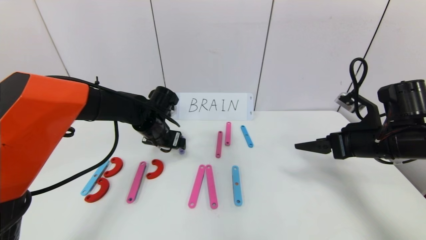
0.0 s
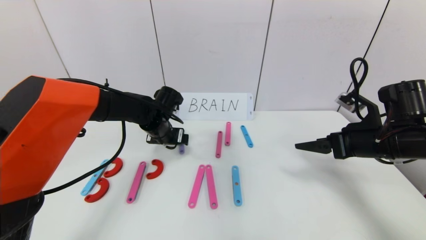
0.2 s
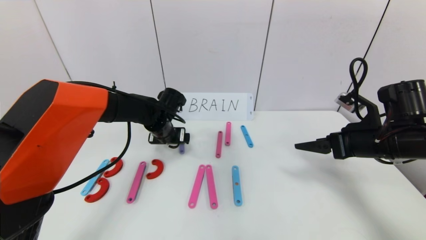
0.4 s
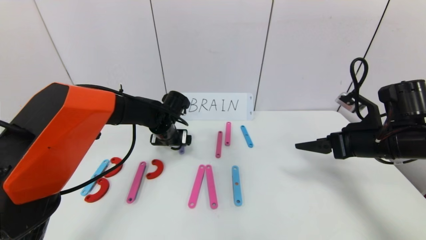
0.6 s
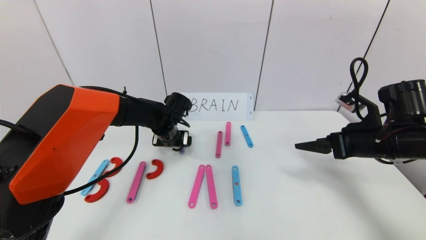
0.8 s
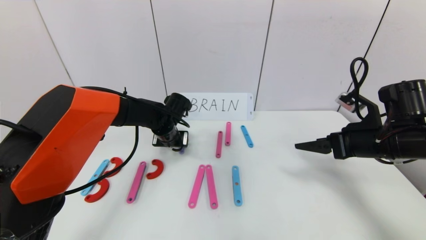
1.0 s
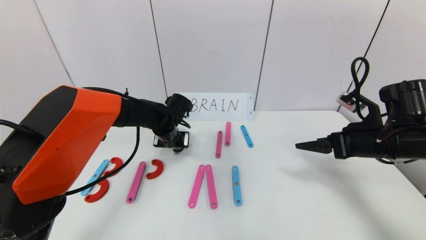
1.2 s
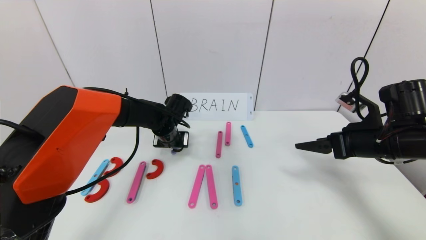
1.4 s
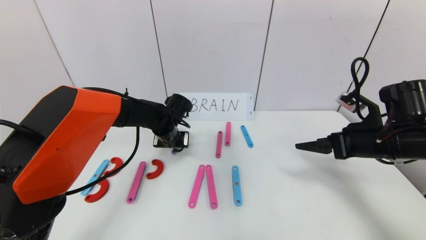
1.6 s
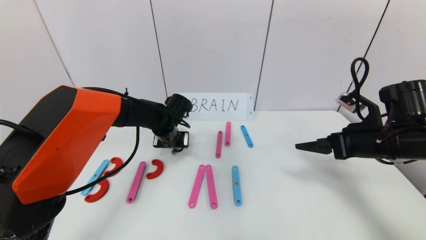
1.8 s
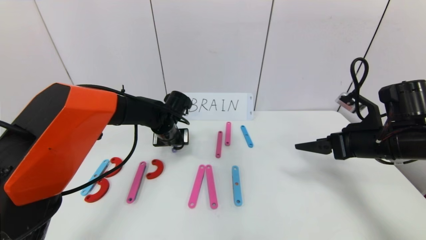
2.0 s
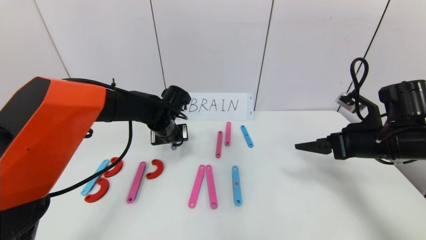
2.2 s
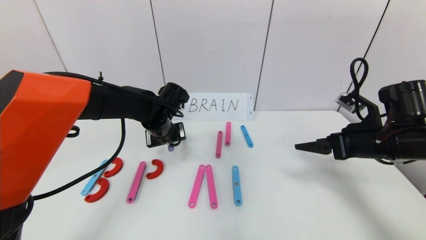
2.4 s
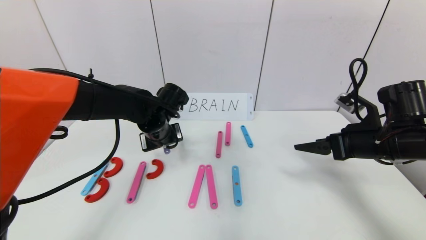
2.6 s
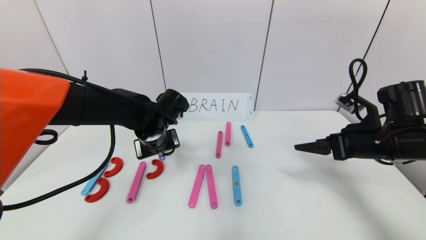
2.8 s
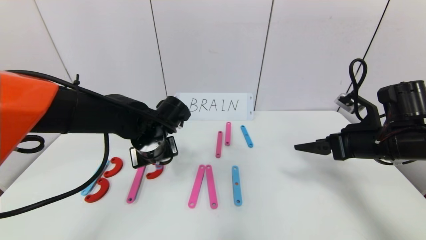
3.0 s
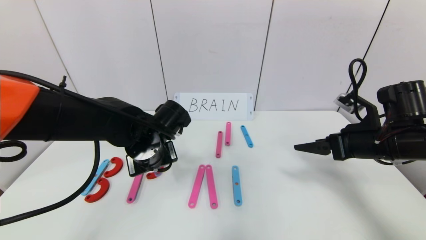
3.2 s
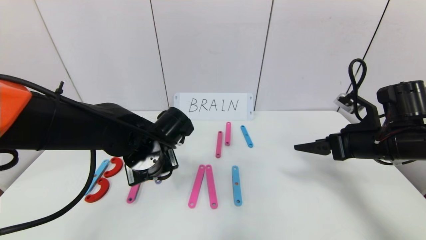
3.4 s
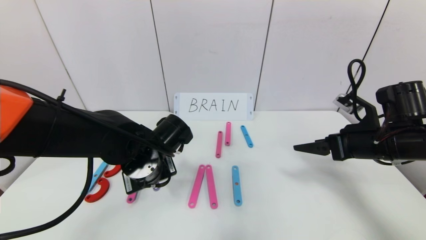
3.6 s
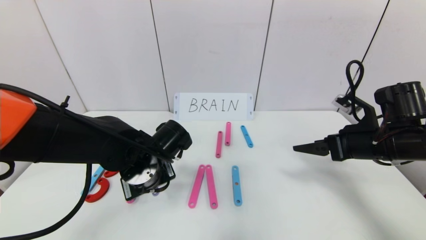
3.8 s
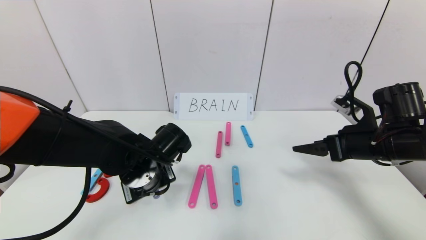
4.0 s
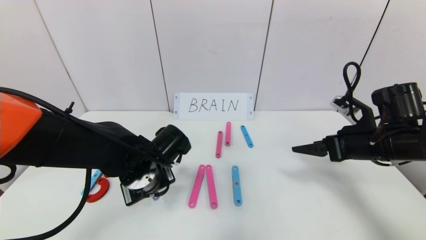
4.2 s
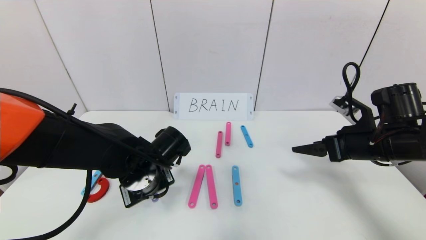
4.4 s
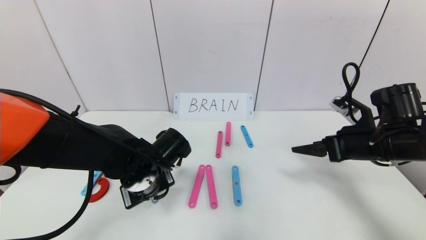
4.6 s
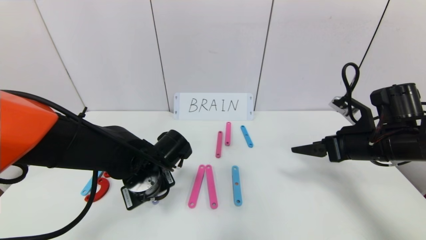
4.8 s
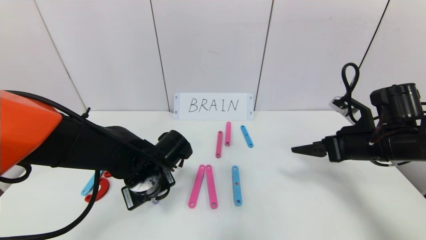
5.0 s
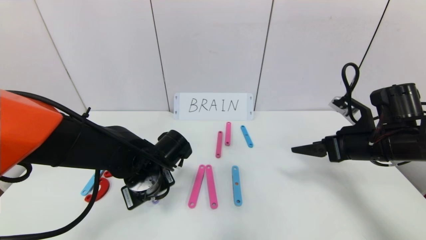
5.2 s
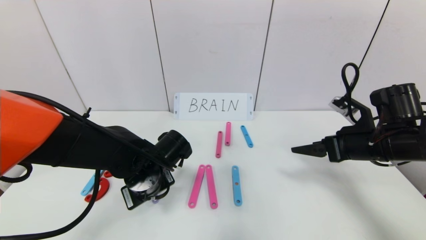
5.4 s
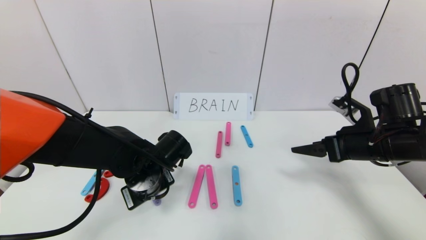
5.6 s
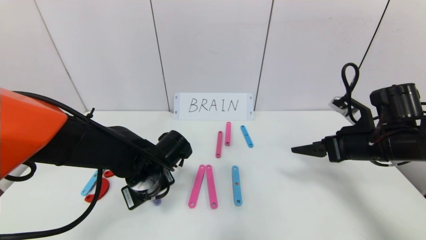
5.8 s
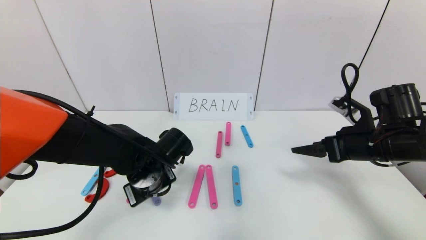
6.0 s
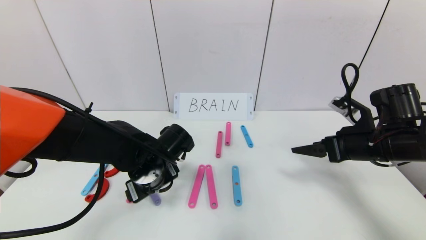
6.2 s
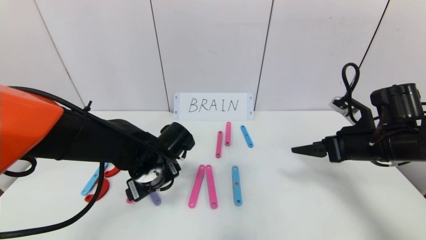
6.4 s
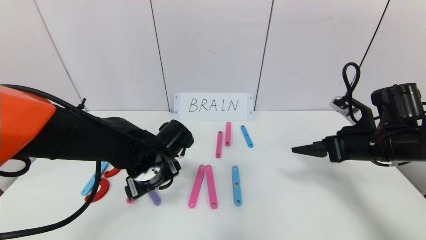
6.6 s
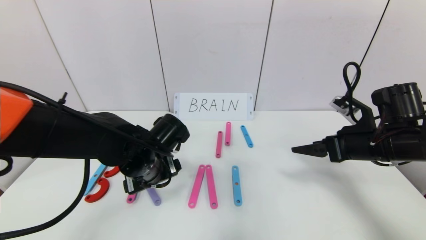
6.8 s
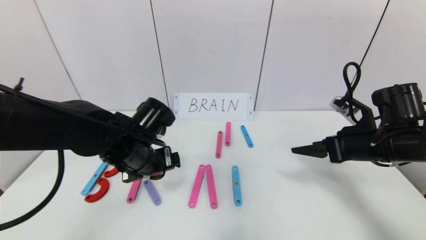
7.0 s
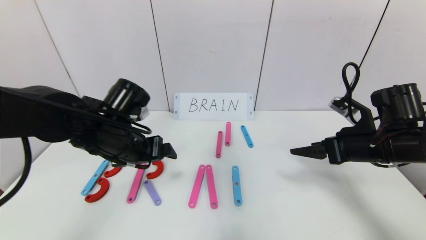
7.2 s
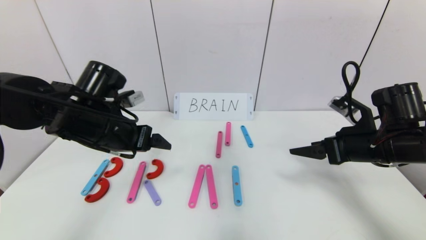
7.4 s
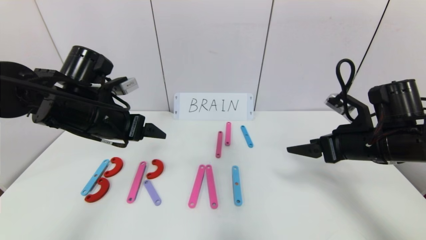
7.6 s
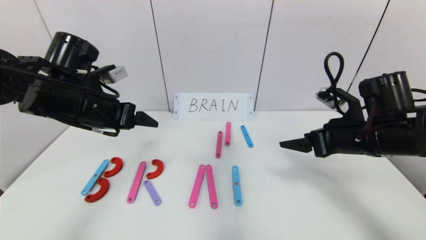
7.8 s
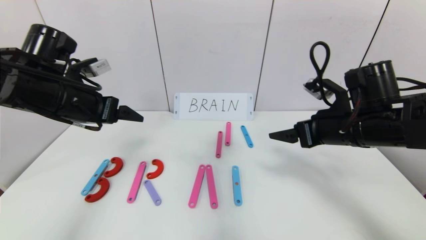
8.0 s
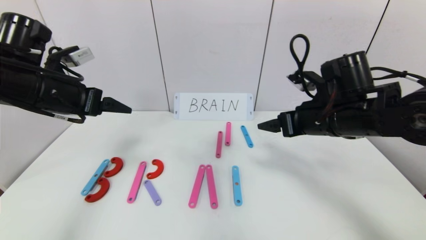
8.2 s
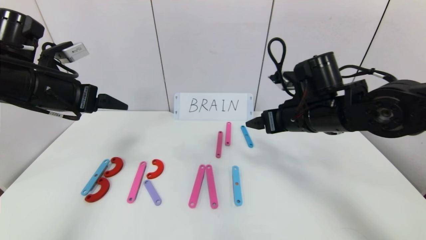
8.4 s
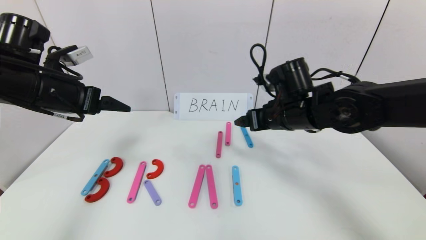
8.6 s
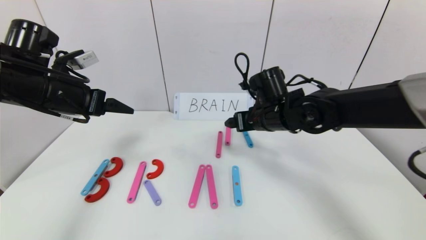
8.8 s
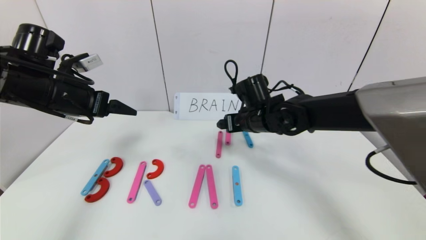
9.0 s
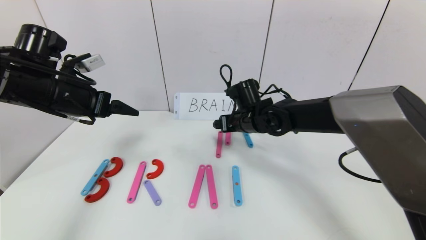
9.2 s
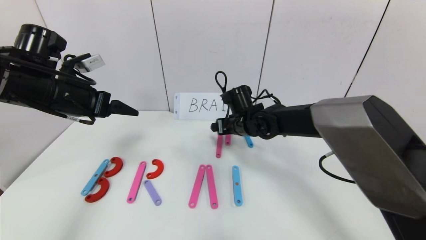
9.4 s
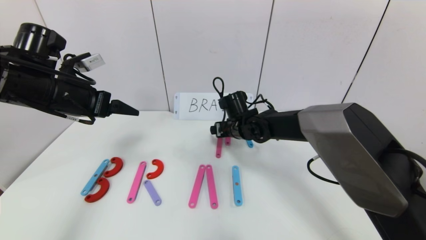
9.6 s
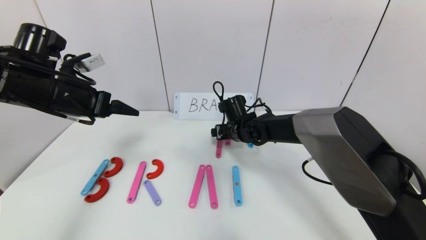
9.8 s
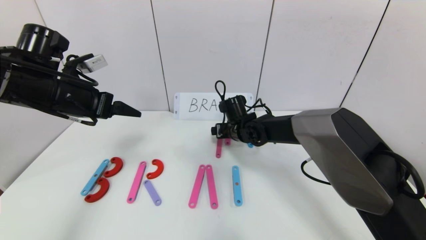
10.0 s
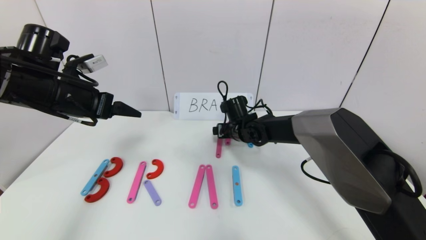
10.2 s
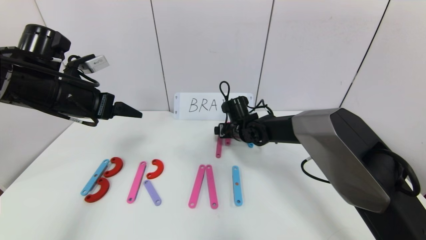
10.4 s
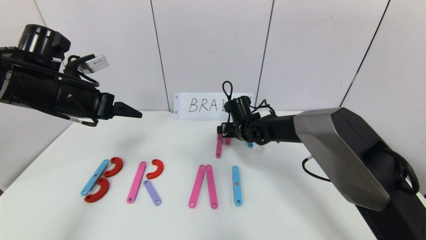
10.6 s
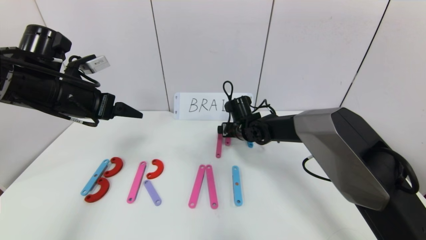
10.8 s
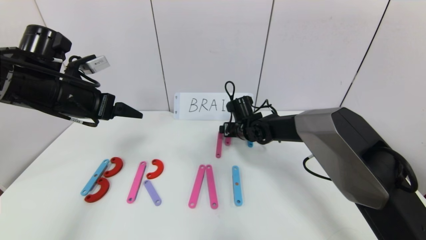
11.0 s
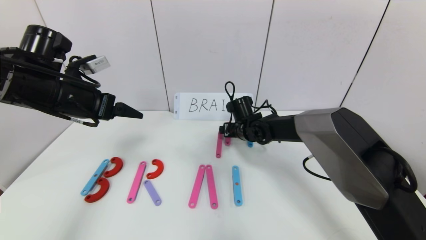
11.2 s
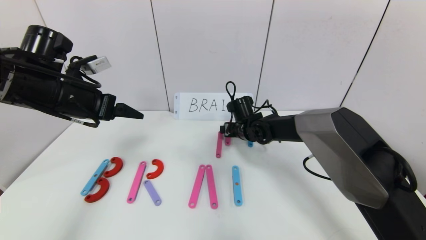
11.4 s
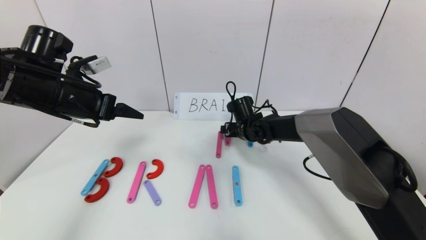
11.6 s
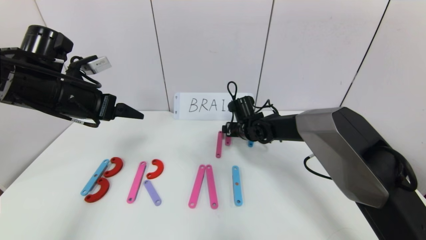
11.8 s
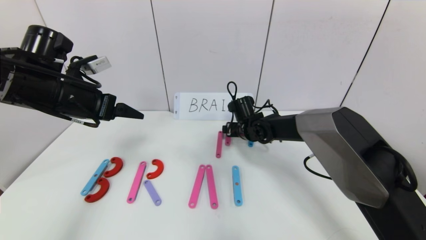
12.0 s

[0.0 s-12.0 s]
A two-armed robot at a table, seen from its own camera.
Task of the whole recording: rearrange the word baai as brain.
Step, 0.0 to 5.6 s: Place the character R between first character B and third character A.
0.0 to 1.6 s: The left gripper closes up.
1.6 to 3.0 s: The left gripper shifts approximately 10 cm backward.
3.0 to 4.4 s: The left gripper moves backward, approximately 5 cm.
4.4 to 6.0 s: The left gripper opens its fingers.
6.0 to 7.6 s: The left gripper heads upward and to the left, covering approximately 15 cm.
7.6 to 9.0 s: The left gripper moves to the left, some 5 cm; the right gripper is displaced to the left and forward by some 20 cm.
9.0 to 10.4 s: The right gripper travels downward and forward by about 10 cm.
10.4 to 12.0 s: The grippers stay close to where they were, moving slightly.

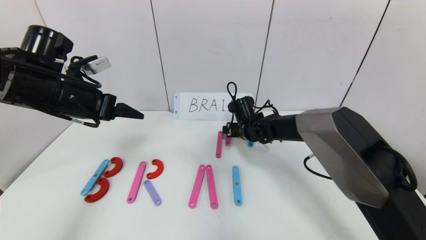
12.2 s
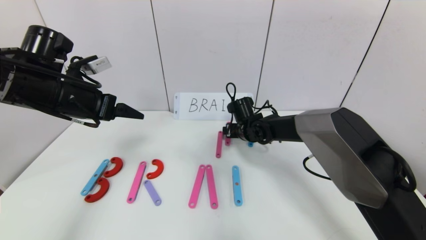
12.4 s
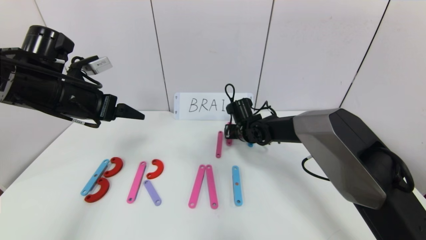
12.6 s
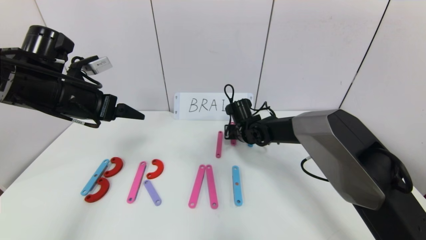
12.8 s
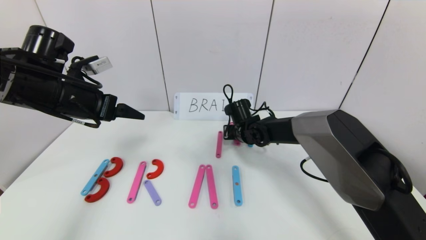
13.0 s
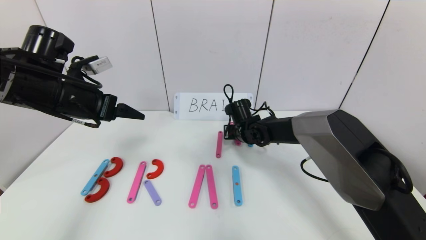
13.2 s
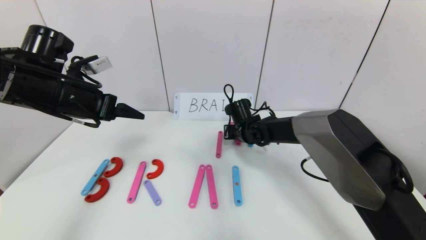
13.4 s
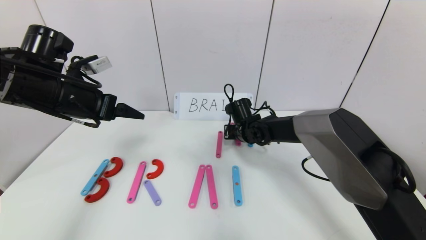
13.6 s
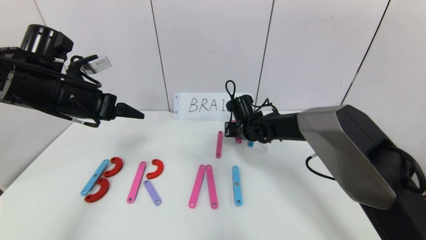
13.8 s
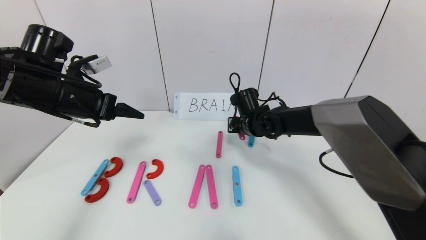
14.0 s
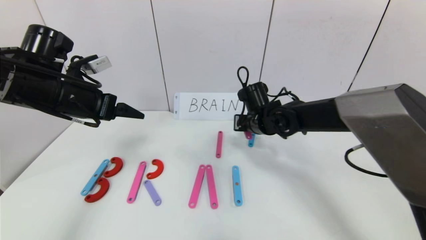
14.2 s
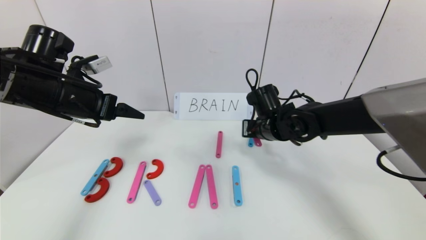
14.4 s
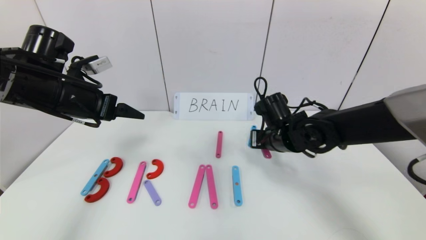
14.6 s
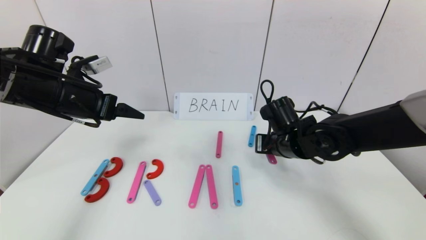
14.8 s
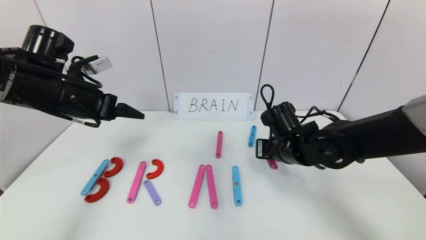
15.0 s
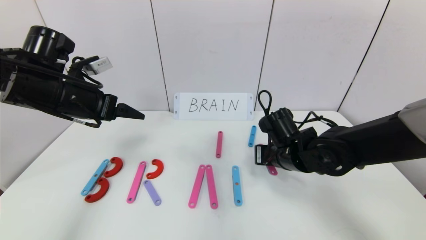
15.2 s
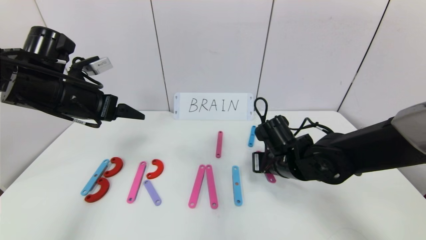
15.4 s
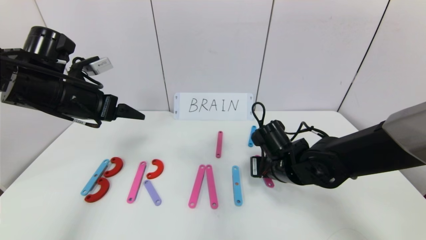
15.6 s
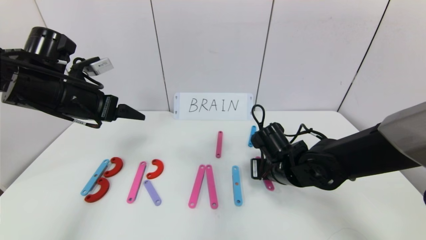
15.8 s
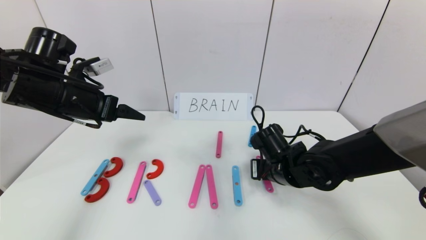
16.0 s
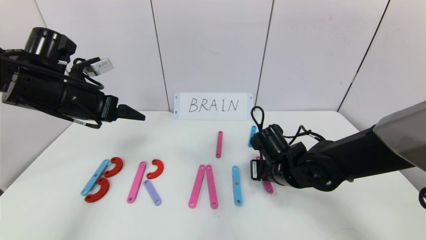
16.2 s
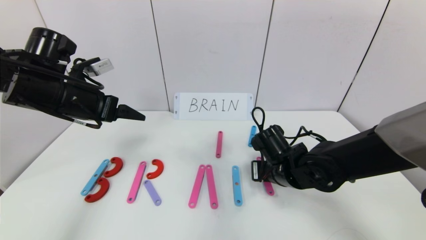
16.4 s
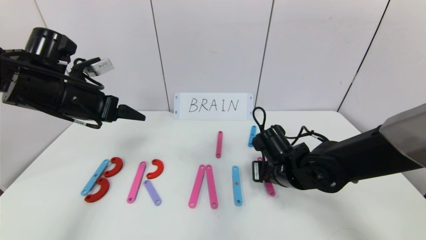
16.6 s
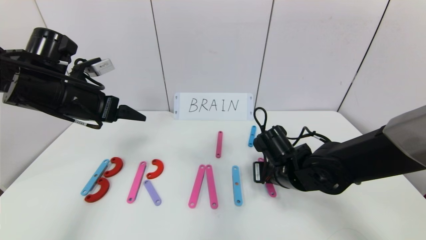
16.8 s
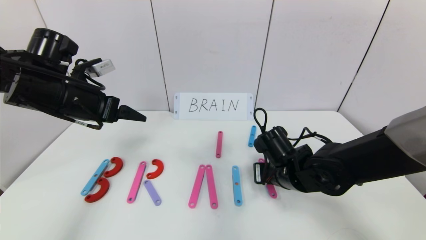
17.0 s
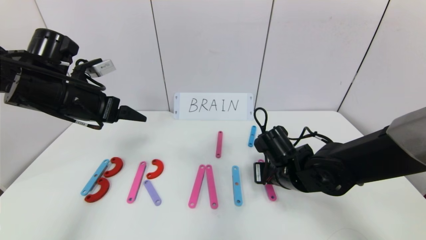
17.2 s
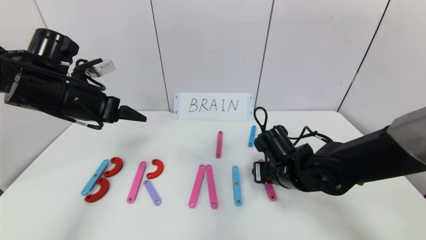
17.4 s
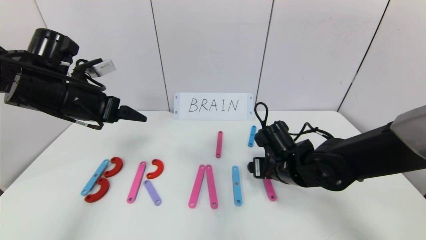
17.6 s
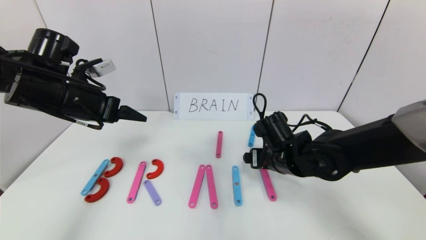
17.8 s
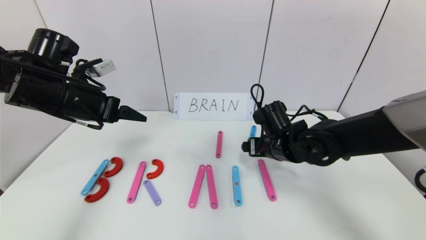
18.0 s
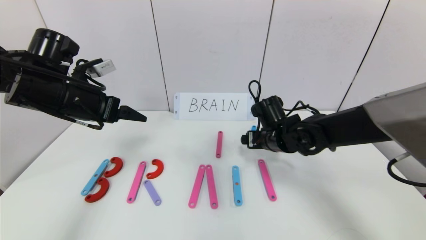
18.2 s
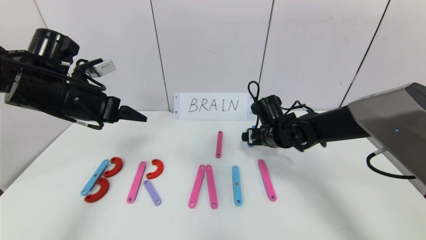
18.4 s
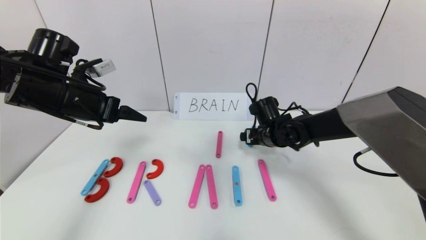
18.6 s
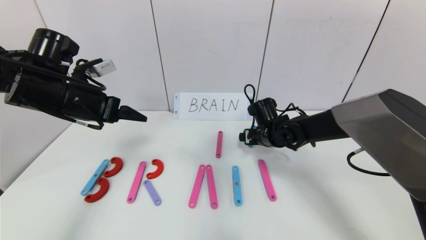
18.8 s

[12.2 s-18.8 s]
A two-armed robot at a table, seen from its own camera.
Task of the whole recording: rearrange the word baai as brain.
12.2 to 13.8 s: The right gripper closes its fingers.
13.8 to 15.4 s: The right gripper is displaced backward and to the right by roughly 15 cm.
15.4 to 17.2 s: The grippers make only small movements.
17.2 to 18.8 s: The right gripper shifts some 10 cm forward, and opens its fingers.
